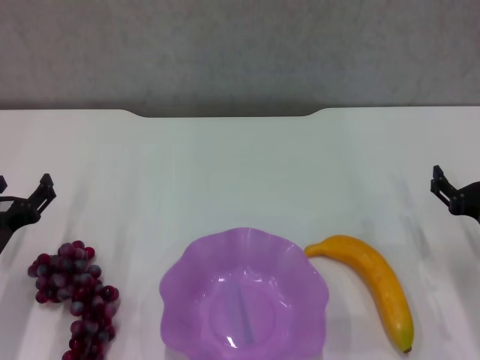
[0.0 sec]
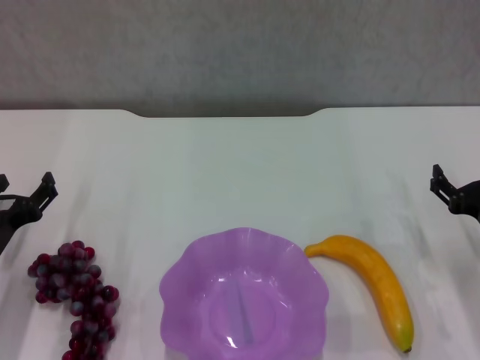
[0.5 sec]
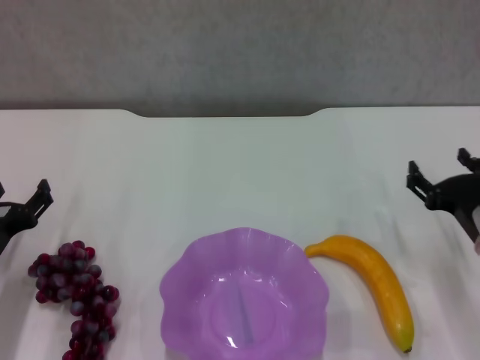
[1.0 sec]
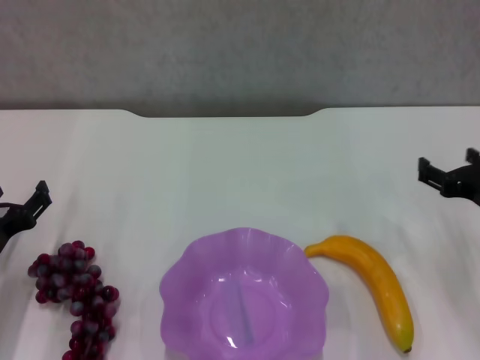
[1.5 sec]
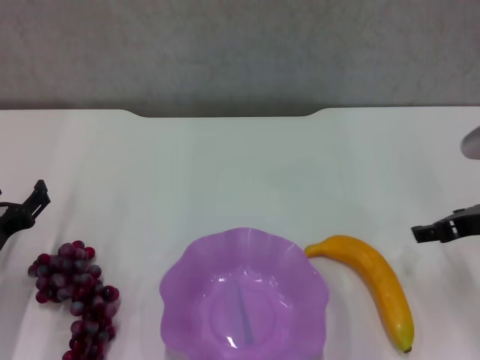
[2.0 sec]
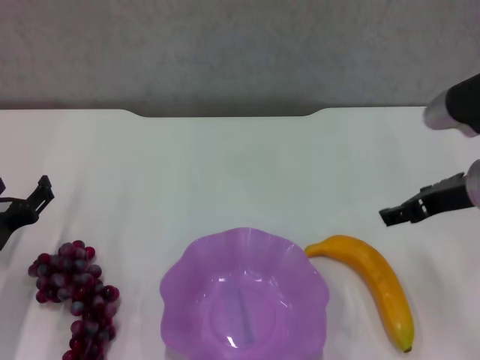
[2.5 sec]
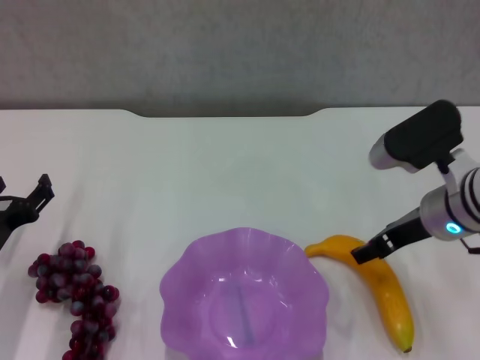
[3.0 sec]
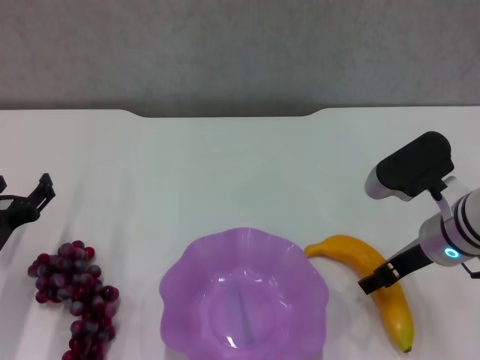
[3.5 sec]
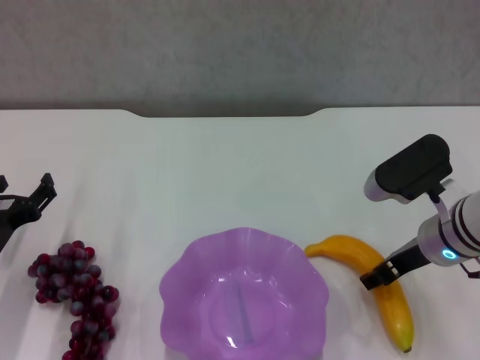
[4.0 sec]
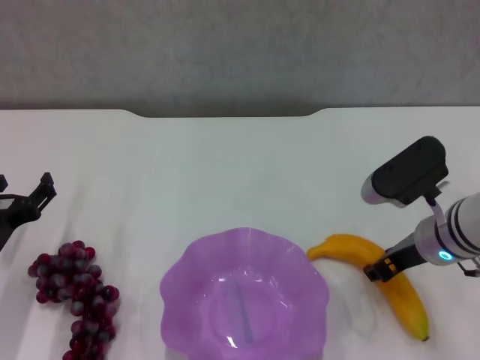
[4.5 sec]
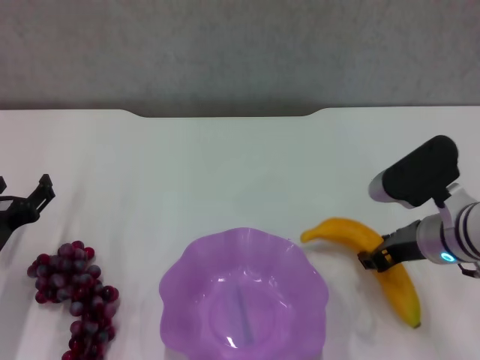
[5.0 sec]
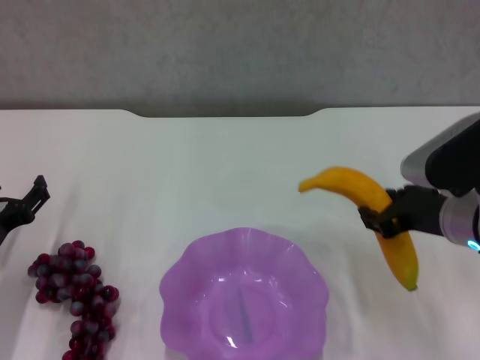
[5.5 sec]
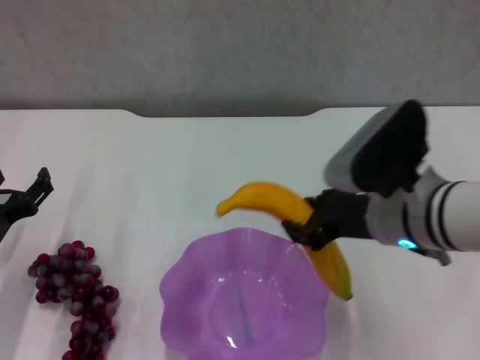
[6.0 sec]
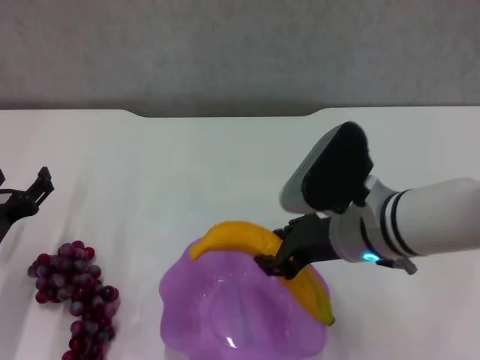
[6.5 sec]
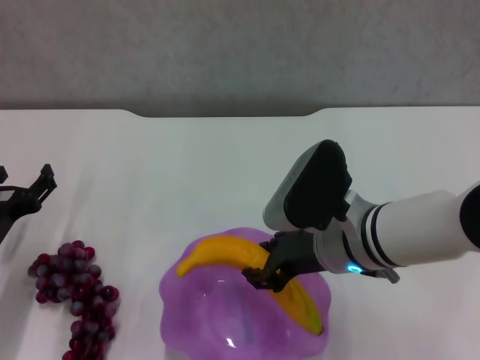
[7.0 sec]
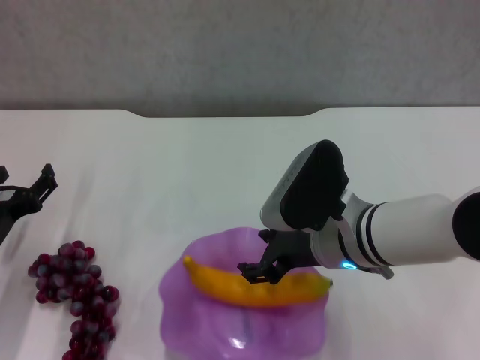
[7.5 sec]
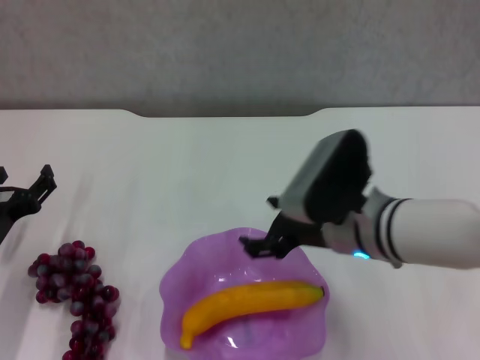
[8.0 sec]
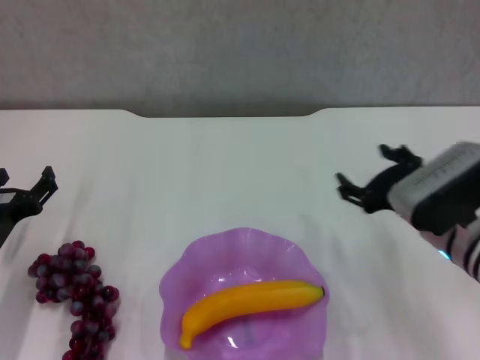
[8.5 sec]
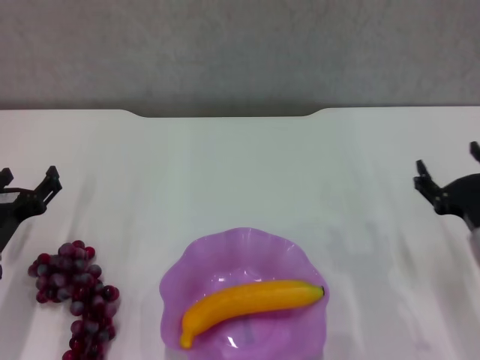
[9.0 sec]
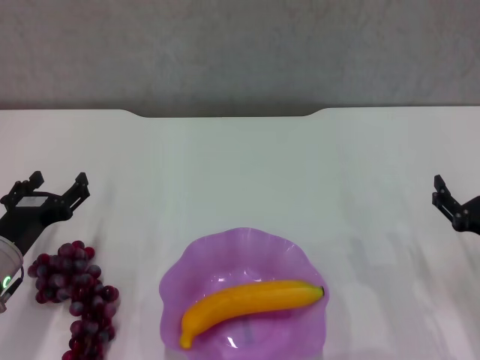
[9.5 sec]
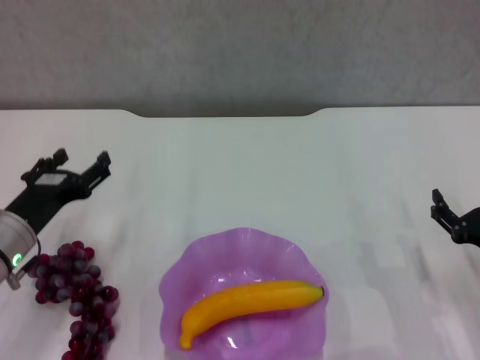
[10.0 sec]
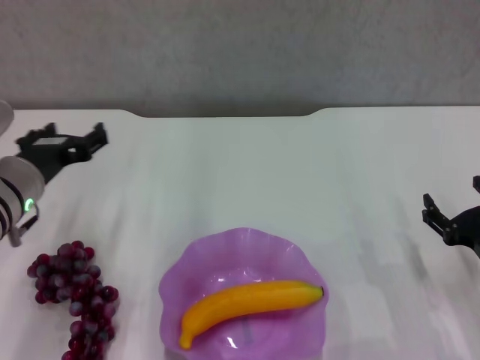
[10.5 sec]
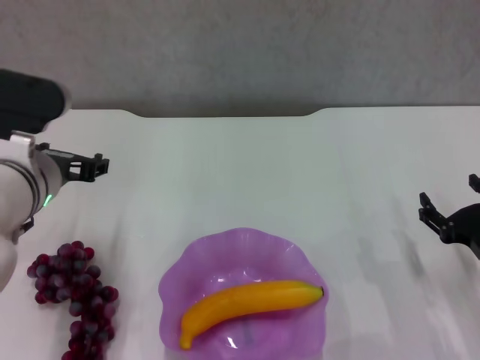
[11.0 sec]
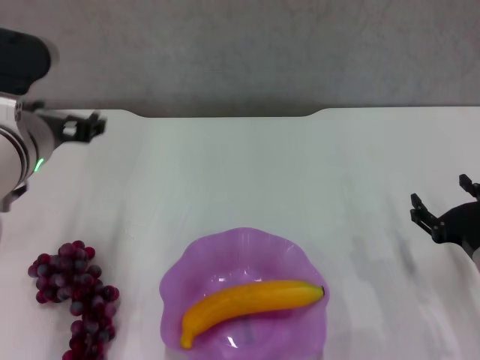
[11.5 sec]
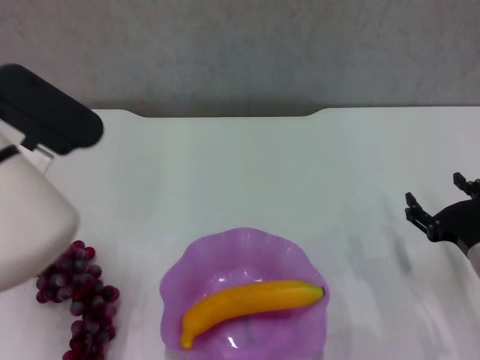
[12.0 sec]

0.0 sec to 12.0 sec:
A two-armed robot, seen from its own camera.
Step, 0.0 sec to 4.0 sec: Grasp the banana with right gripper.
Step, 4.5 sec to 7.5 sec: Place the banana in the purple plate with right gripper.
0.0 sec to 2.0 sec: The right gripper is displaced upward by some 10 cm.
2.0 sec to 4.0 sec: The right gripper shifts roughly 5 cm to the left.
4.0 sec to 6.0 sec: The right gripper is displaced to the left and upward by roughly 10 cm, and closes its fingers.
6.0 sec to 8.0 sec: The right gripper opens.
8.0 sec to 10.0 sec: The right gripper is displaced to the right and downward by about 20 cm.
10.0 sec to 12.0 sec: The left gripper shifts some 15 cm upward and to the right.

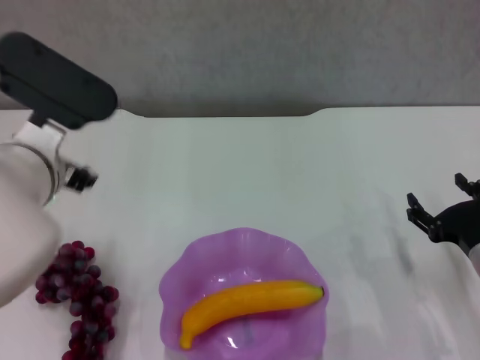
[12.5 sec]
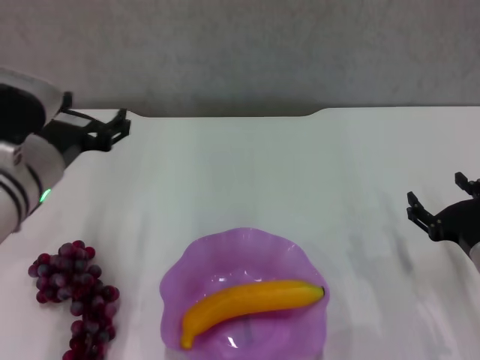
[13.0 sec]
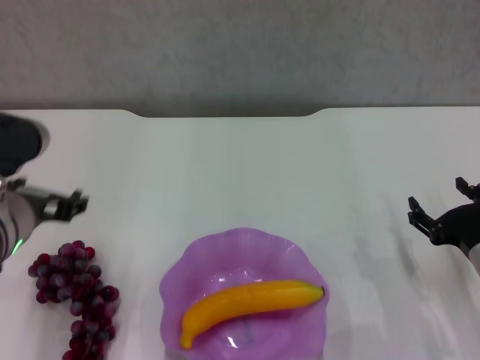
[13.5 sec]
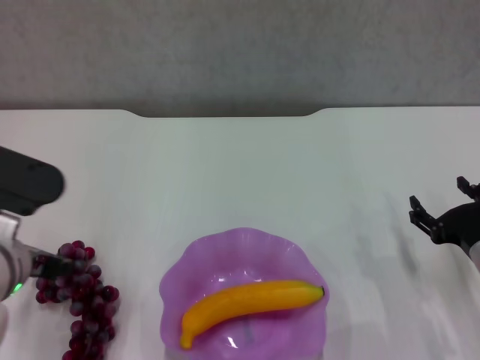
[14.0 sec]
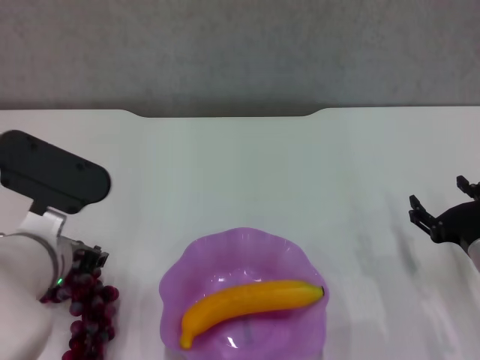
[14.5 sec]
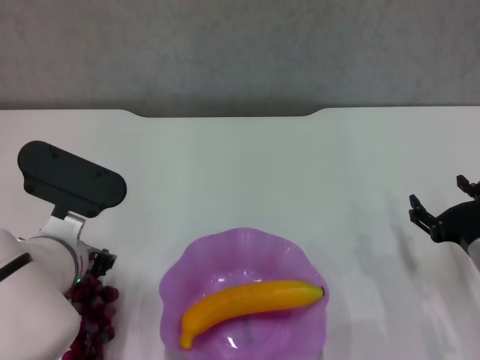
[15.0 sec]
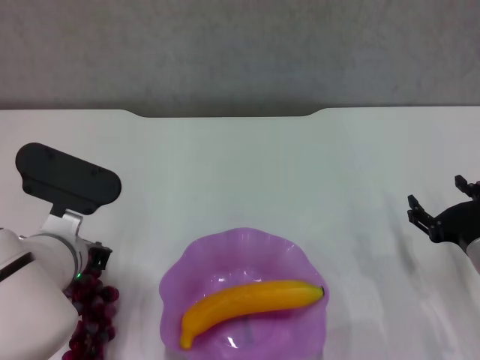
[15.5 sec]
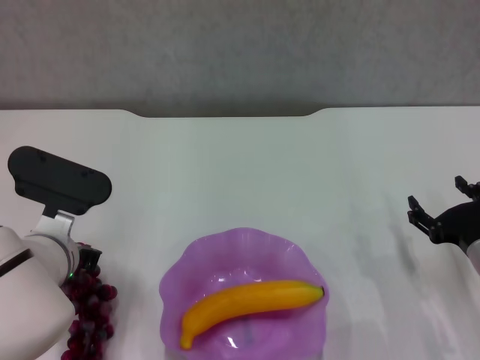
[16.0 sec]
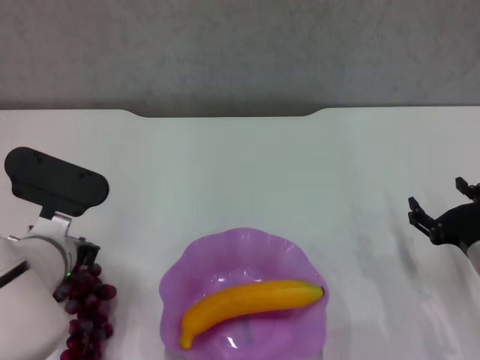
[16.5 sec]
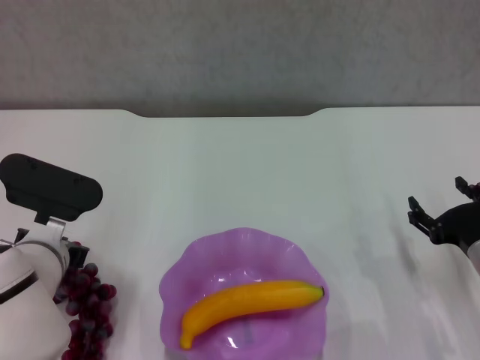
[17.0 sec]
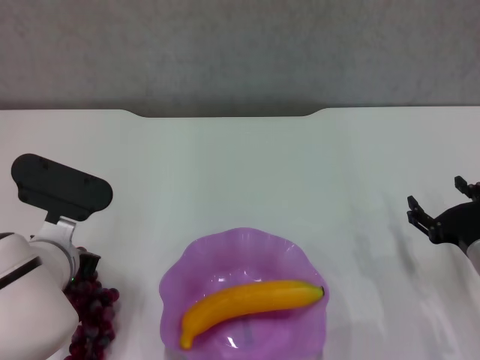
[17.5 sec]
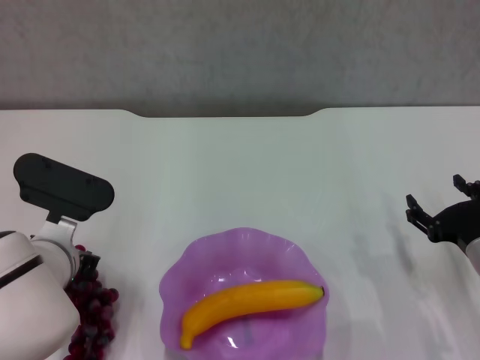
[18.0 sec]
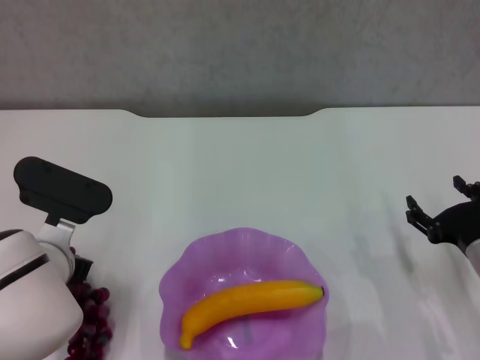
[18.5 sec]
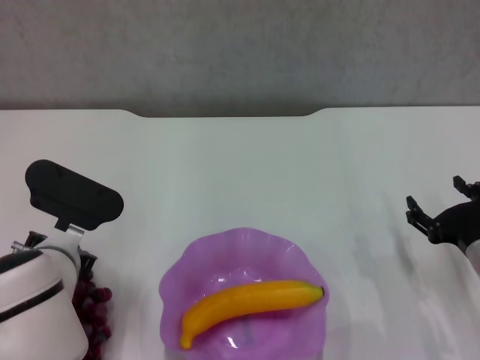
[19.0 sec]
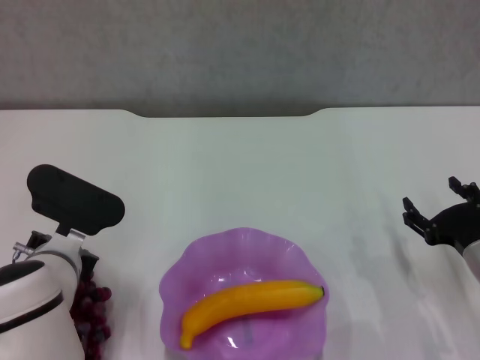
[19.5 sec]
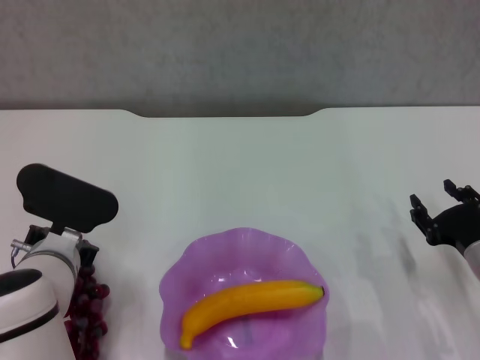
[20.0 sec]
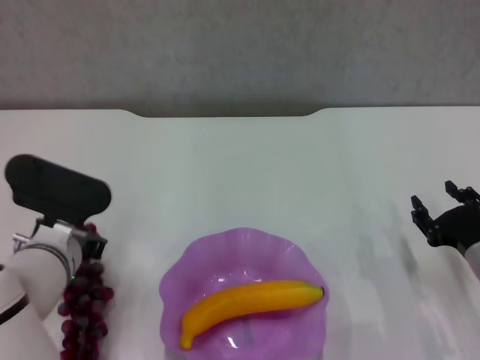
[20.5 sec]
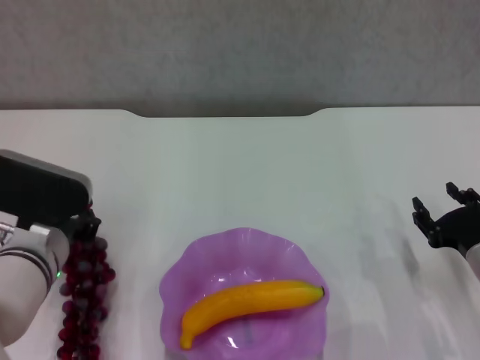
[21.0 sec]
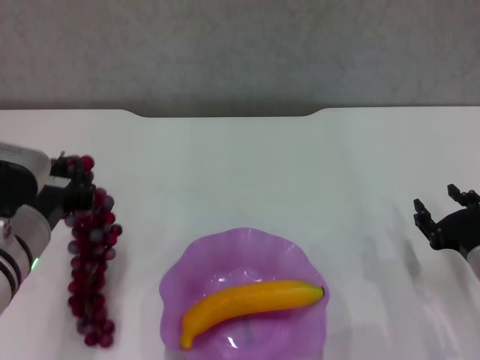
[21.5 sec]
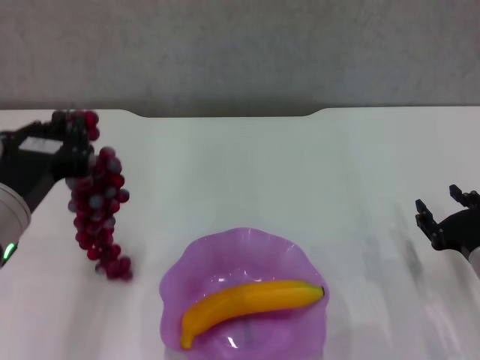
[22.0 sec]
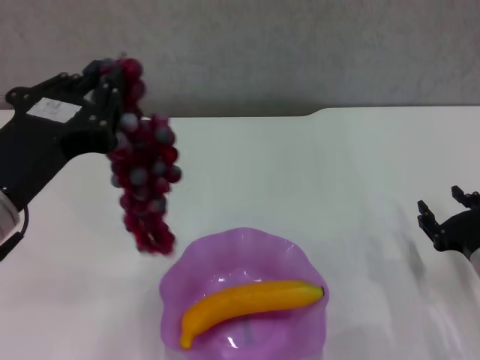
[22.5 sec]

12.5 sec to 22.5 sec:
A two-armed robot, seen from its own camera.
Step, 12.5 sec to 16.5 sec: Grasp the grape with left gripper.
12.5 sec to 14.5 sec: The left gripper moves downward, roughly 5 cm.
14.5 sec to 16.5 sec: The left gripper is displaced downward by some 5 cm, and closes.
16.5 sec to 18.5 sec: The left gripper opens.
18.5 sec to 20.5 sec: The left gripper closes. The right gripper closes.
20.5 sec to 22.5 sec: The left gripper travels upward and backward by about 15 cm.

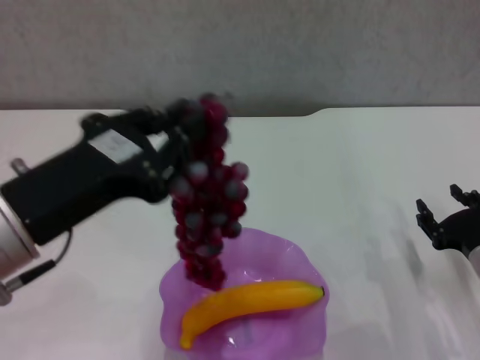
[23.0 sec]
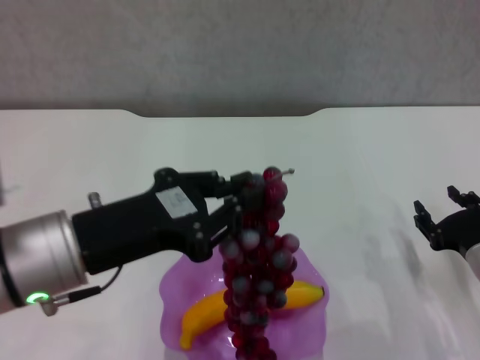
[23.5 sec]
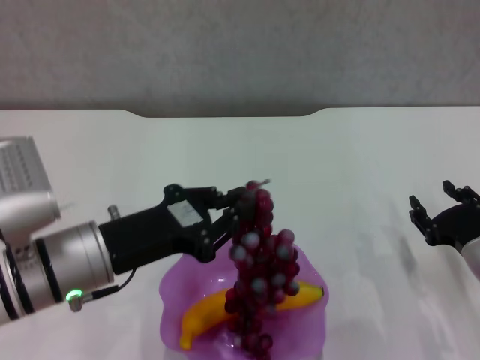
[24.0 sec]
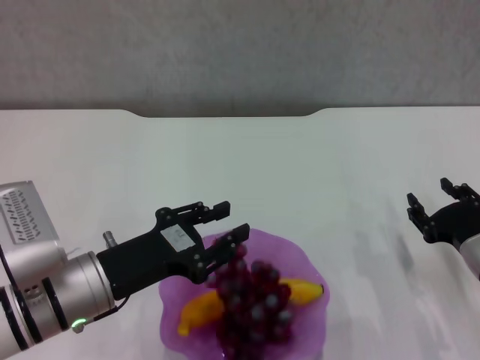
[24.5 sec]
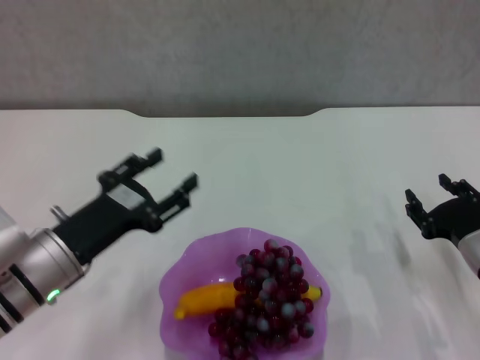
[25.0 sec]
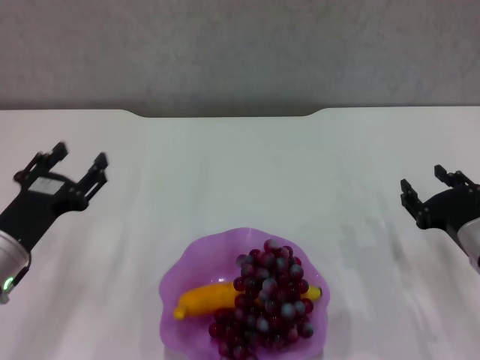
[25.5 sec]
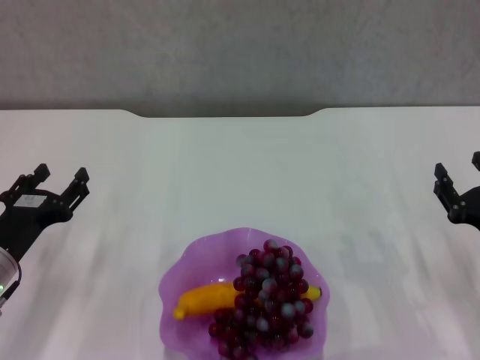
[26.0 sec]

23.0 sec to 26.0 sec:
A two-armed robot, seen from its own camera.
23.0 sec to 24.5 sec: The left gripper is displaced downward by about 15 cm.
24.5 sec to 26.0 sec: The left gripper goes about 10 cm to the left, and opens.
